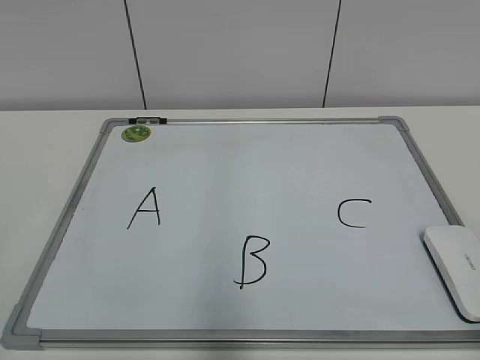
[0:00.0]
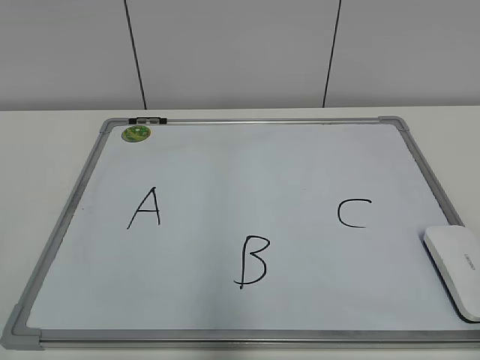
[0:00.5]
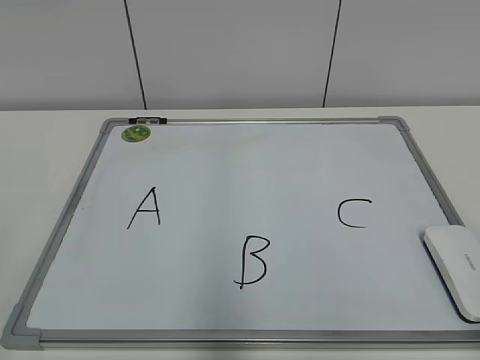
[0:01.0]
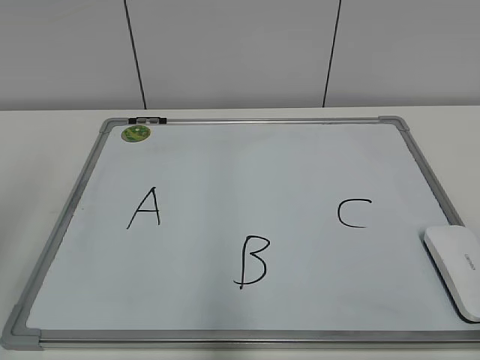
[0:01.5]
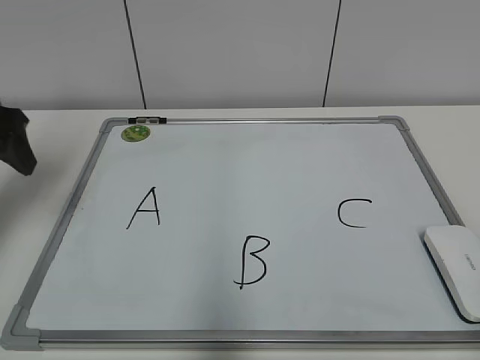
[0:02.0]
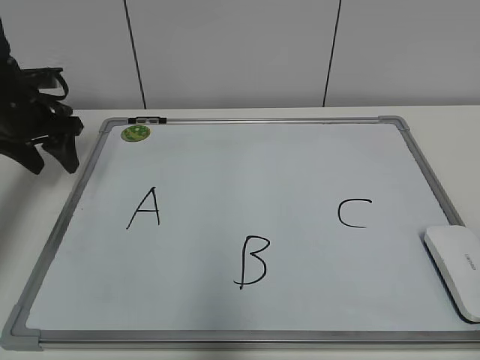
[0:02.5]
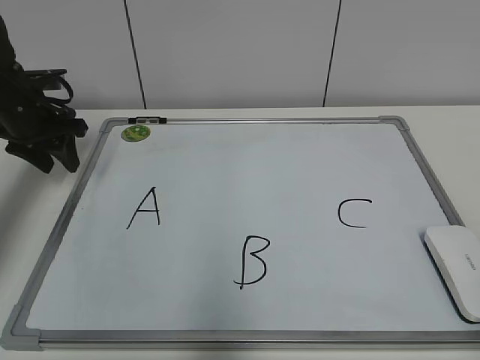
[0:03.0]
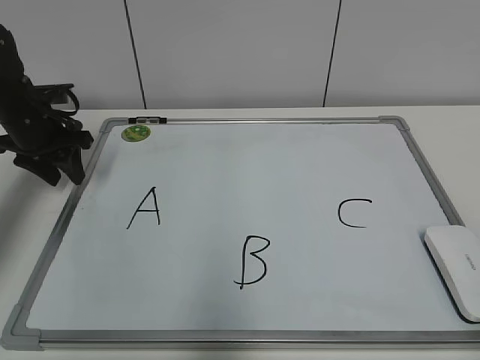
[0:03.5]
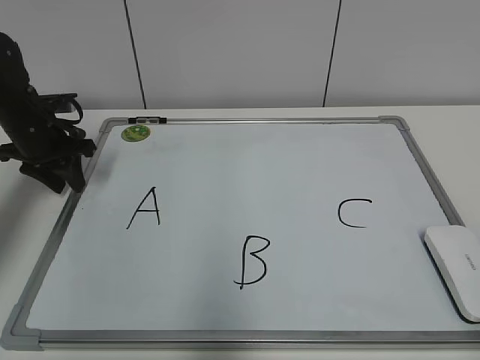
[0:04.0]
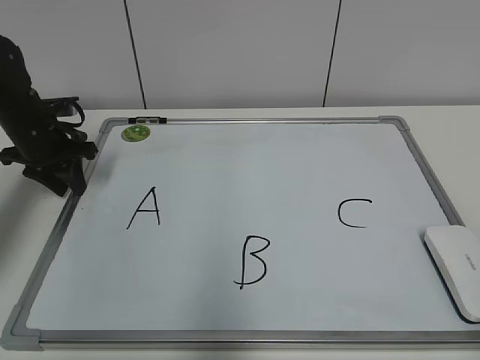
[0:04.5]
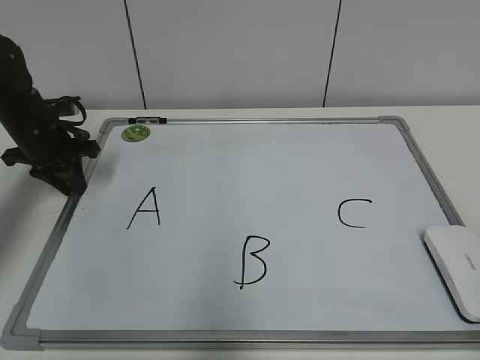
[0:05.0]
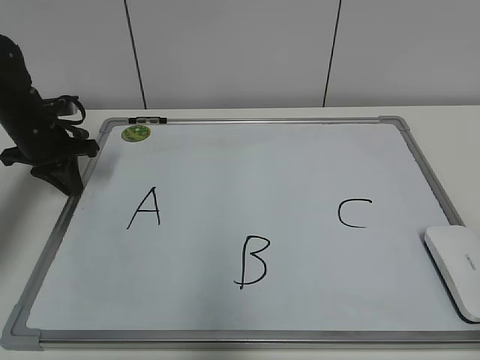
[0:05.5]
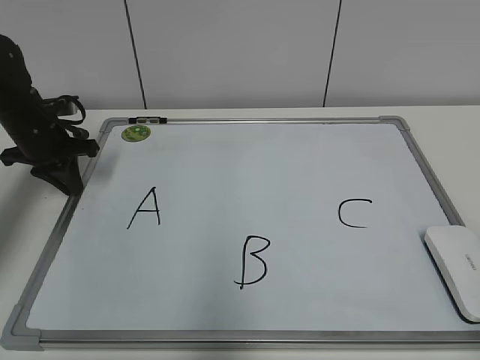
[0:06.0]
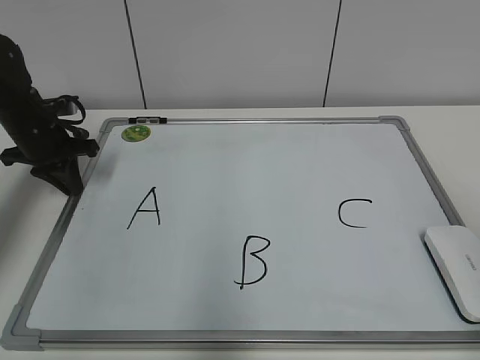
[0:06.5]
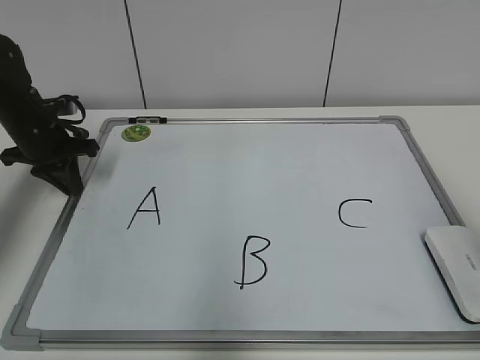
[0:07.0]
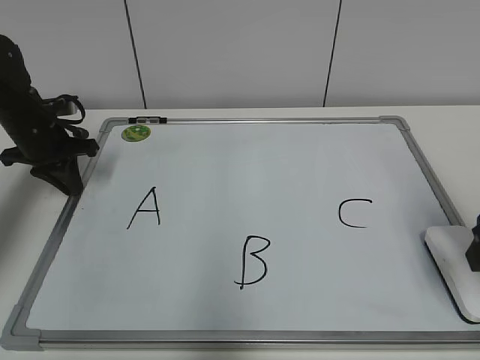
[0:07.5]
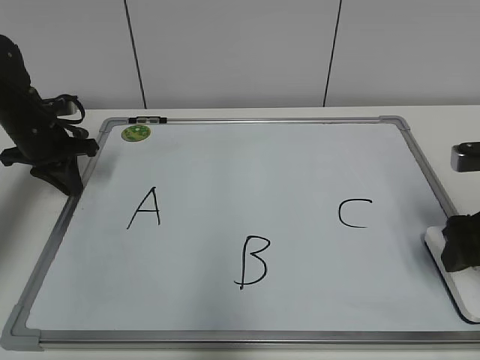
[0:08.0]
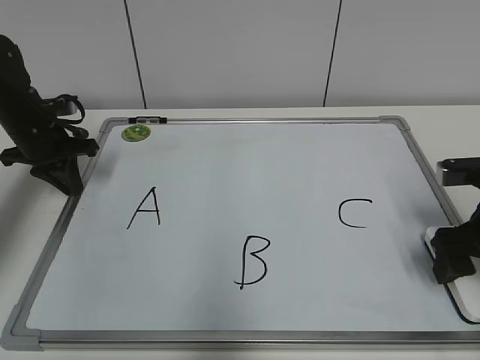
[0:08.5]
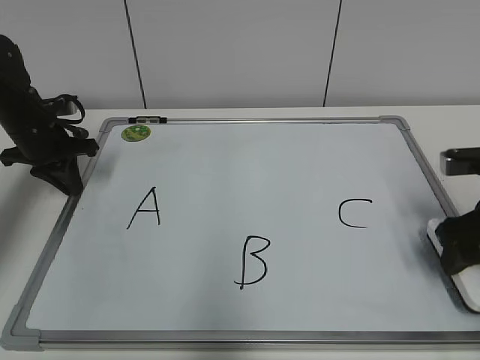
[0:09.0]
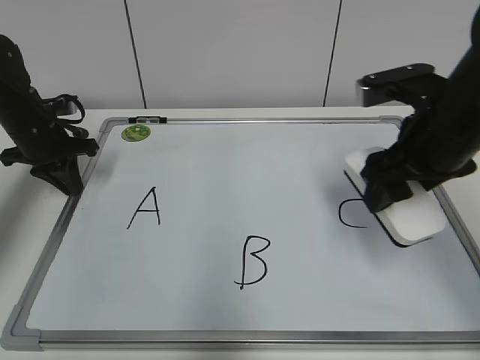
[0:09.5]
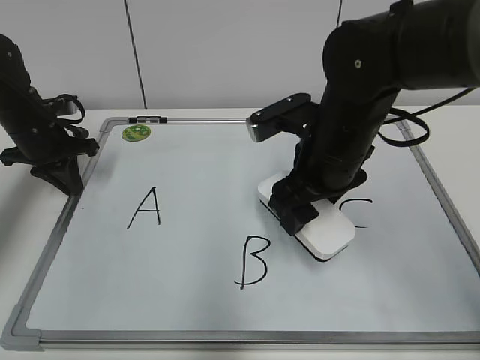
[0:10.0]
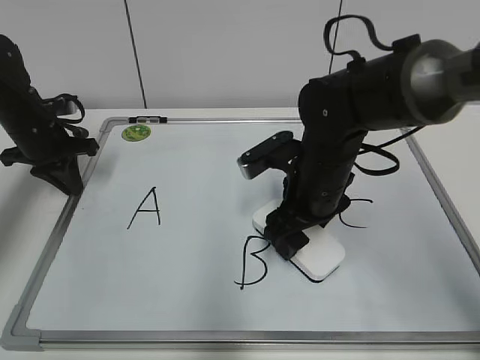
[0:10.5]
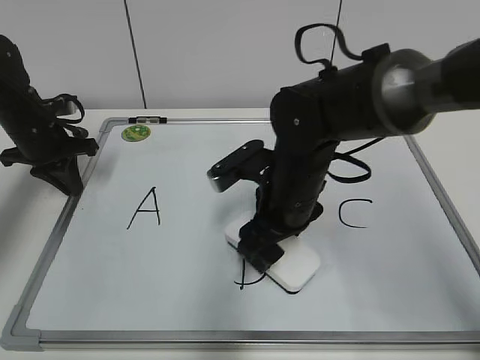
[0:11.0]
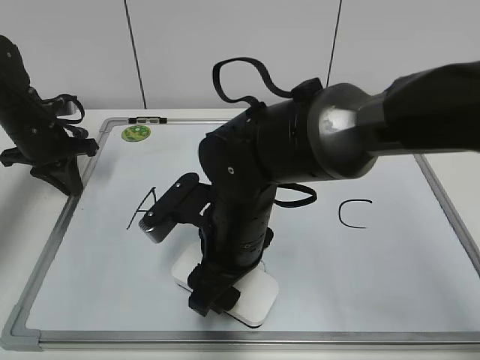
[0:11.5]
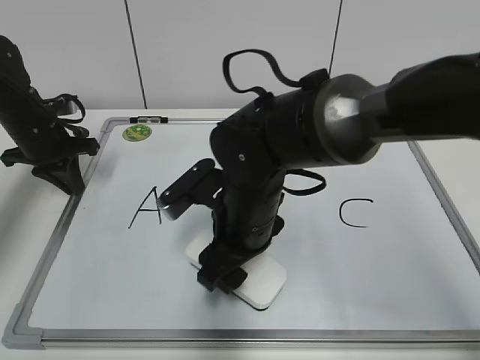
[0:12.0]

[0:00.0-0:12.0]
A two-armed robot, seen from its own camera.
Task of the whole recording: pick up the eraser on the blackboard and erase the letter "B".
Step, 0:00.0 to 0:04.5: Hold the drawing board steady with your left hand.
Step, 0:05.0 to 0:08.5: Grab the eraser with your right hand.
0:02.0 to 0:04.0: The left gripper is displaced forward and downward by some 15 cm, and closes its fingers.
0:04.0 to 0:06.0: The left gripper closes.
0:06.0 to 0:08.0: The right gripper travels forward by about 25 cm, and opens its fingers.
0:08.0 to 0:10.0: The right gripper moves to the left, roughly 20 cm, and closes.
0:10.0 to 0:12.0: The right gripper shifts about 10 cm to the left and downward.

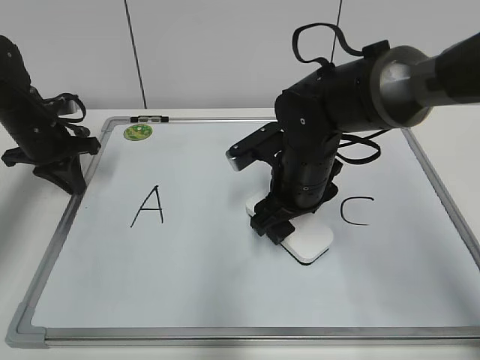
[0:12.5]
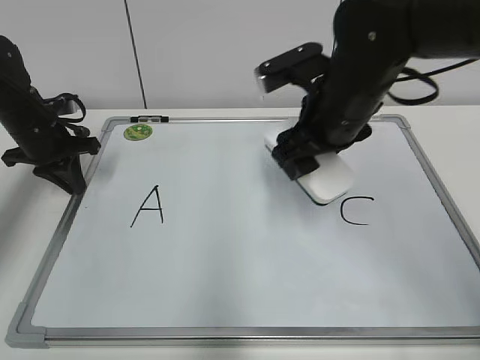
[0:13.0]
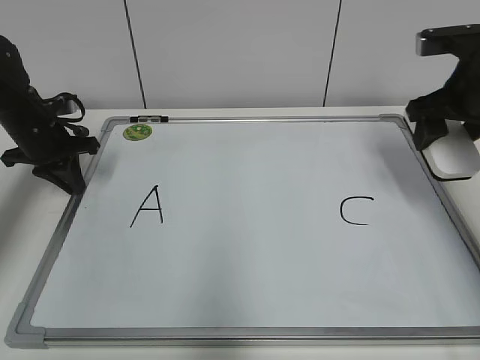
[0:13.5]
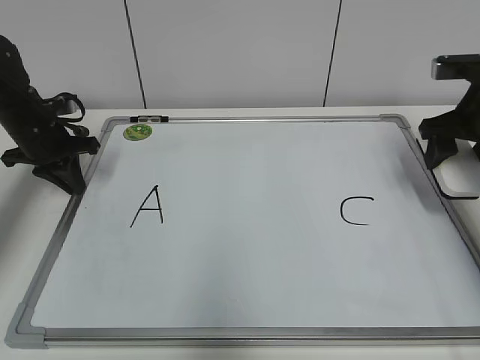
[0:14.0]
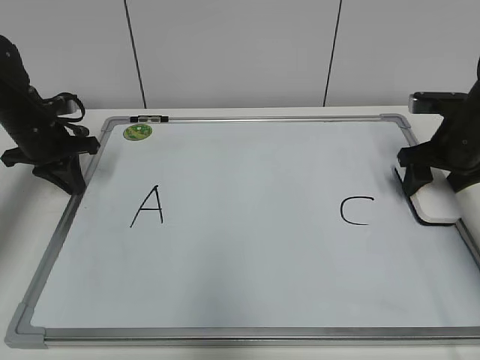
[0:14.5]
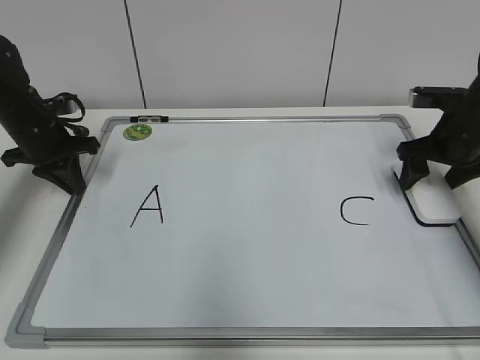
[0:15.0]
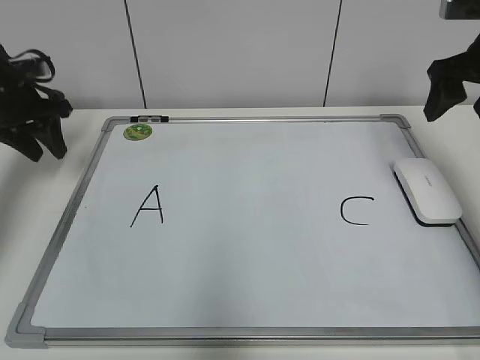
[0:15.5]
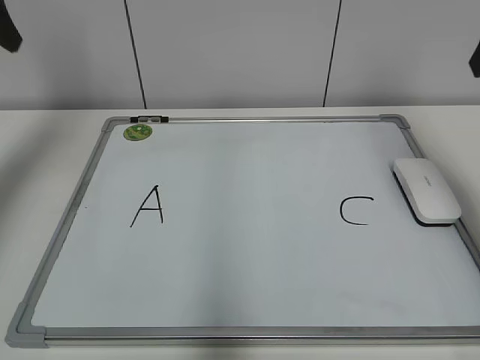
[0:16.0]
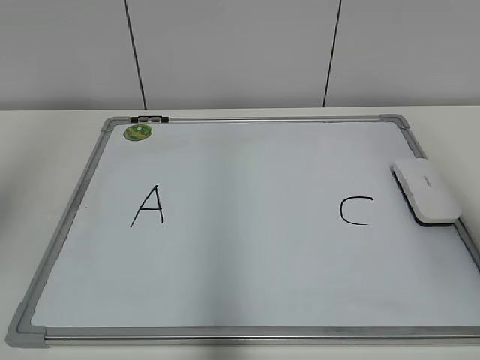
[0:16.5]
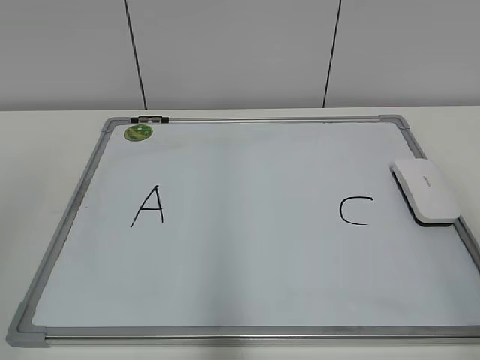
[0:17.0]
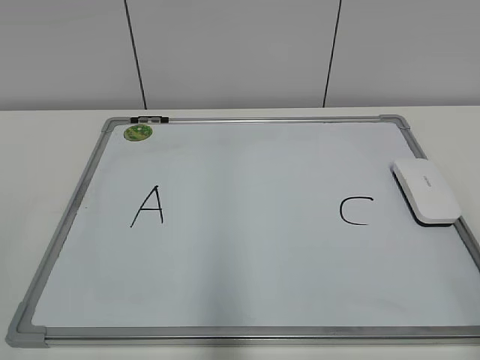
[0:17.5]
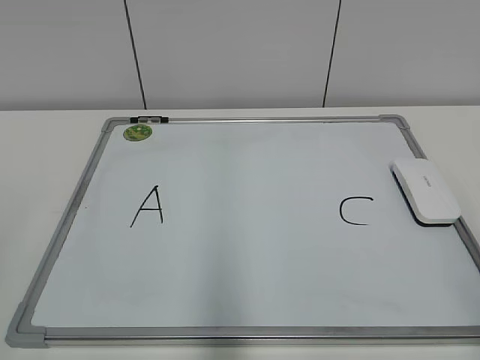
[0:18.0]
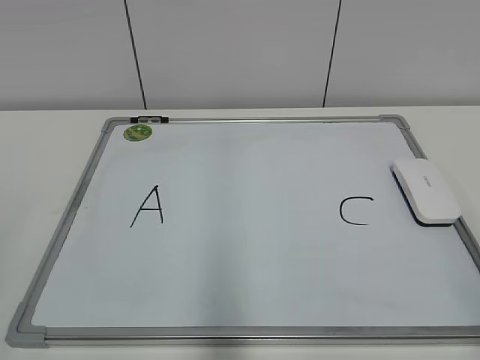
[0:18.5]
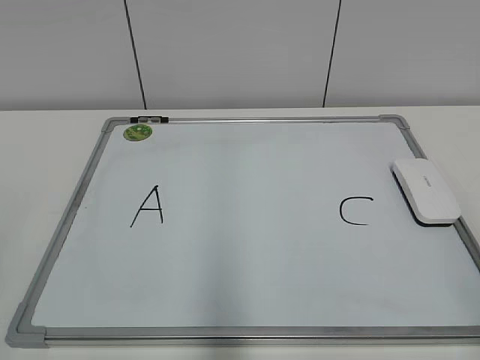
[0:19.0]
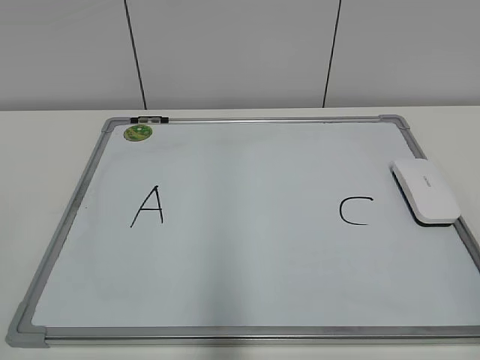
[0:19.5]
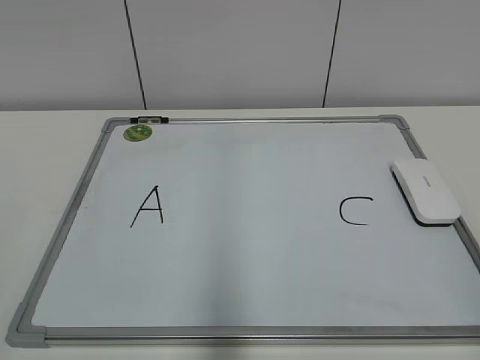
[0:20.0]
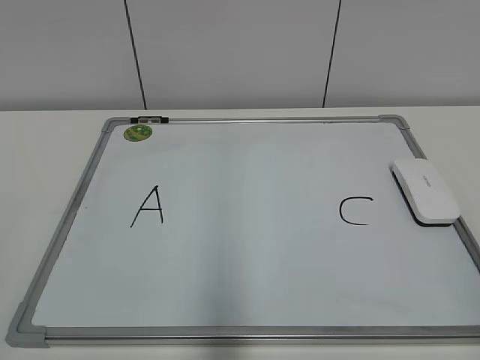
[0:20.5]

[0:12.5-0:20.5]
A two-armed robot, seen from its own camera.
Task of the whole recording: pick up the eraser on the blackboard and erase the letter "B".
0:12.5 to 0:14.5: The right gripper heads to the right, covering approximately 20 cm.
0:14.5 to 0:16.5: The left gripper shifts some 40 cm upward and backward, and opens its fingers. Meanwhile the right gripper moves backward and upward, roughly 30 cm, and opens up.
0:16.5 to 0:18.5: Both grippers travel together backward and downward, about 20 cm.

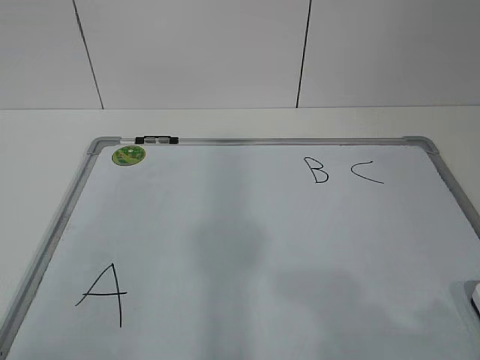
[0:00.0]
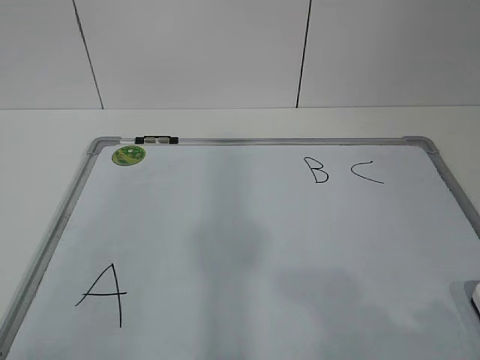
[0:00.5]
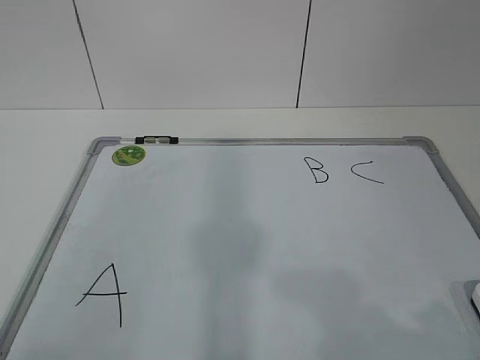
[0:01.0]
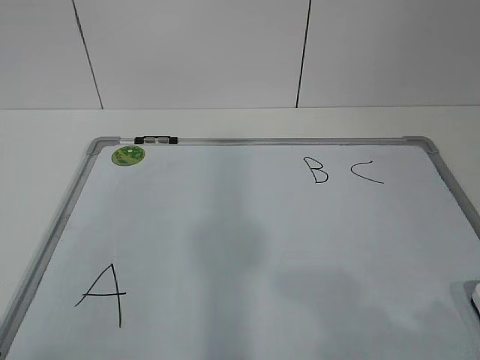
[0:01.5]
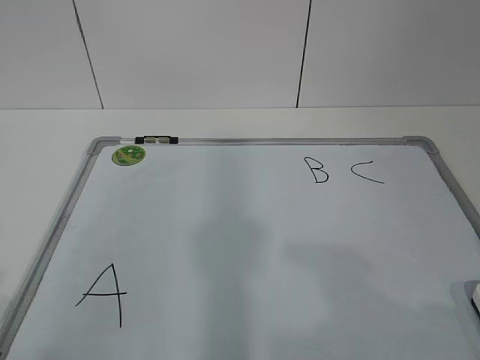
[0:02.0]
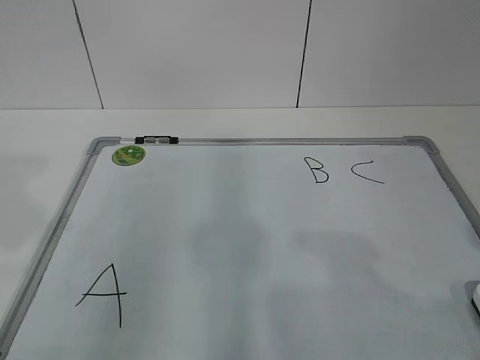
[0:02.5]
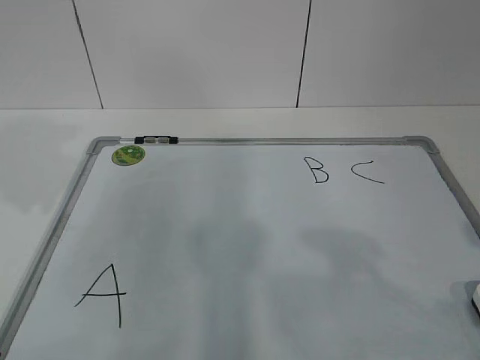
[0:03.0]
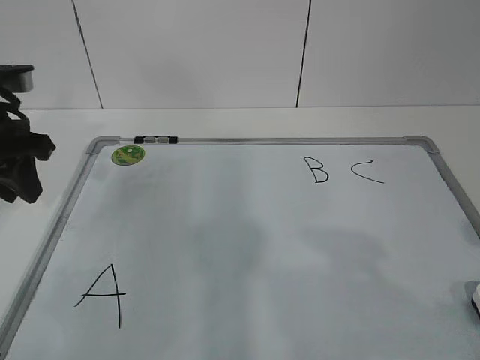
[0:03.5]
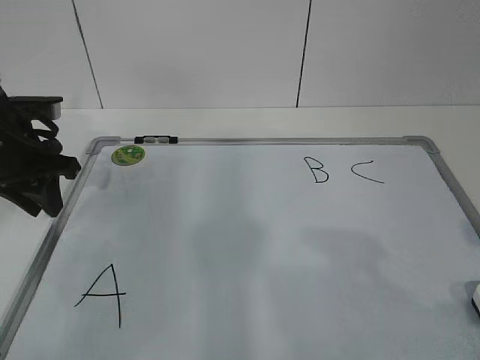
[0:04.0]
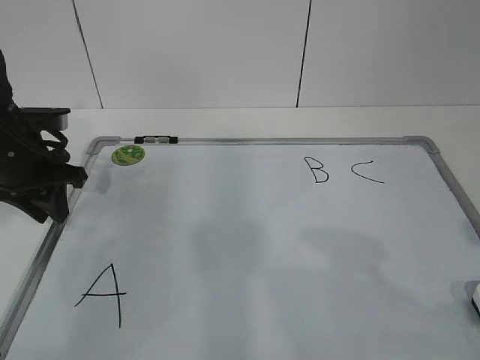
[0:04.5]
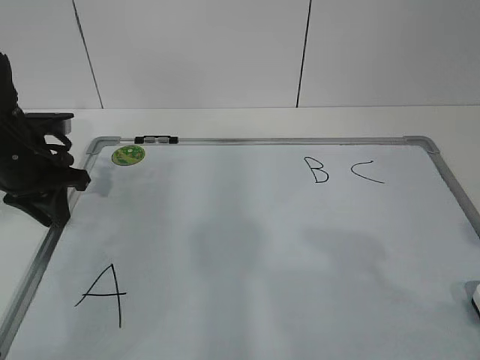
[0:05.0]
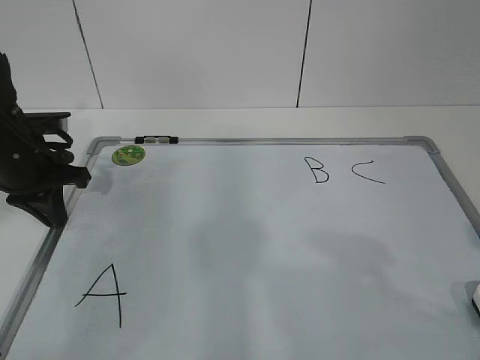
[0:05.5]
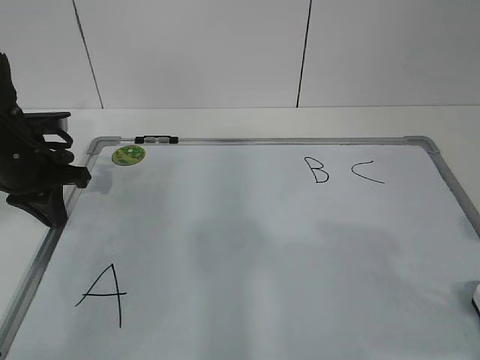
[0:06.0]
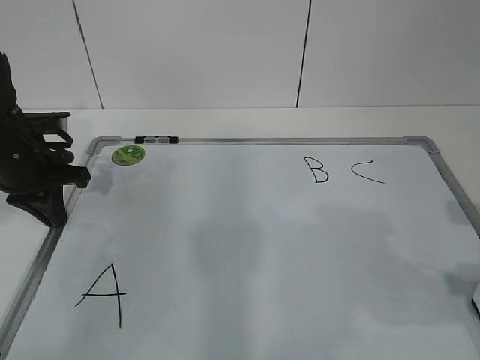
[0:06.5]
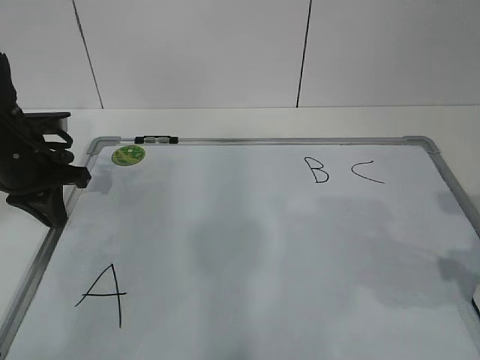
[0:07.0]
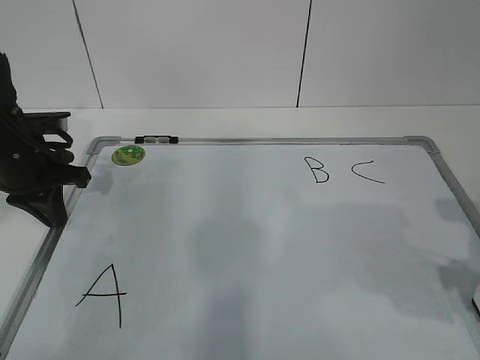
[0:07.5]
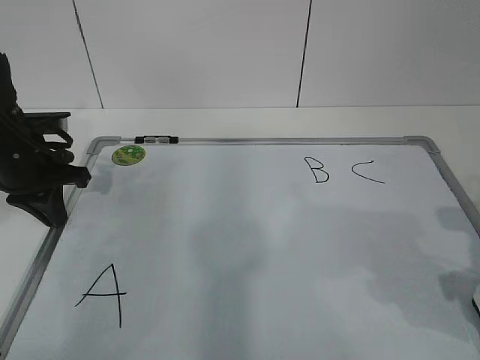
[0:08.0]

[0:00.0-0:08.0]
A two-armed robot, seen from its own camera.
Task of the whole recording: pick up the eraser on the blackboard and erase the letter "B".
Step, 0:00.0 to 0:04.0: Hold the drawing board steady with your left hand.
0:02.0 to 0:04.0: The left gripper heads forward, covering roughly 35 cm.
0:04.0 to 0:06.0: The left gripper closes its fingers.
